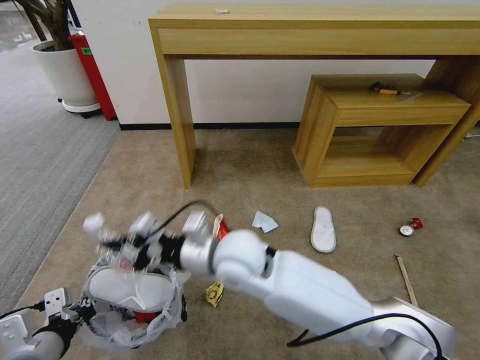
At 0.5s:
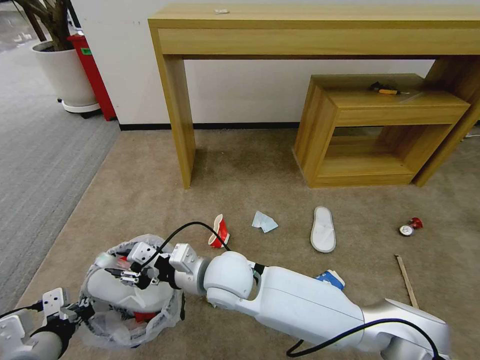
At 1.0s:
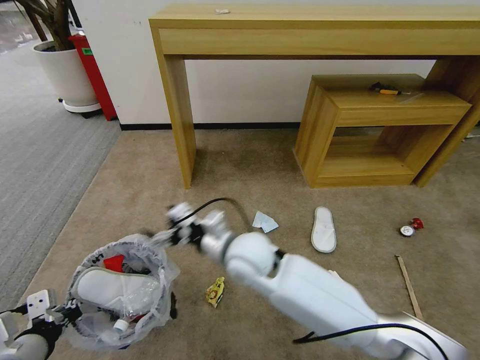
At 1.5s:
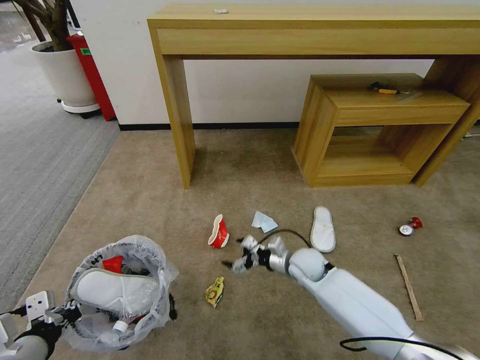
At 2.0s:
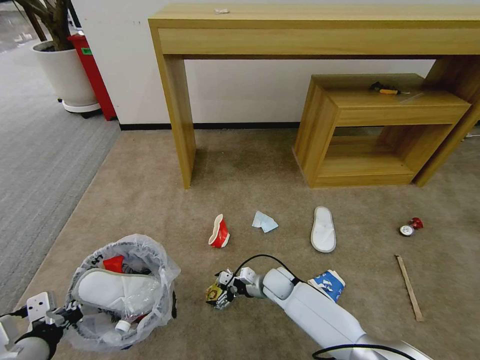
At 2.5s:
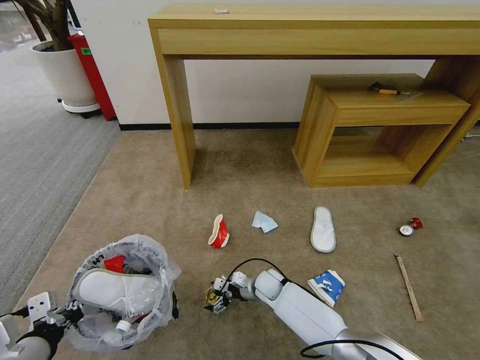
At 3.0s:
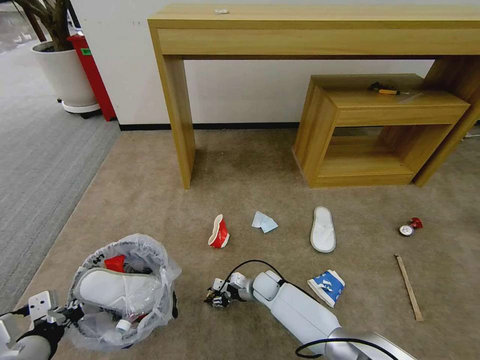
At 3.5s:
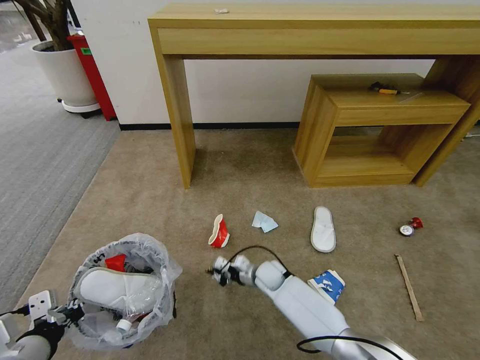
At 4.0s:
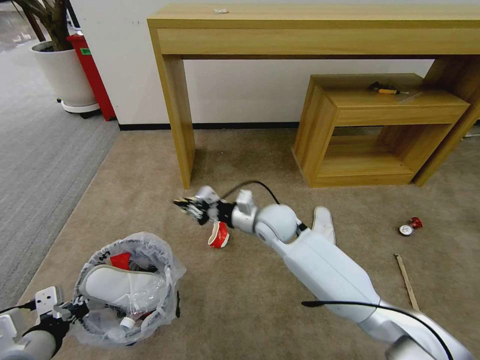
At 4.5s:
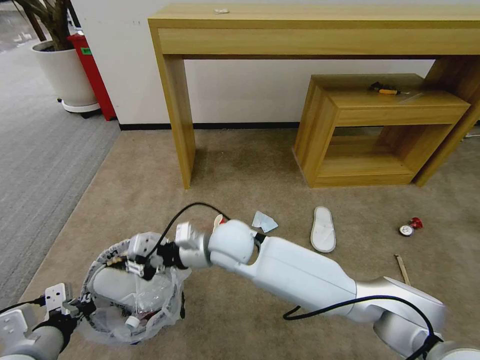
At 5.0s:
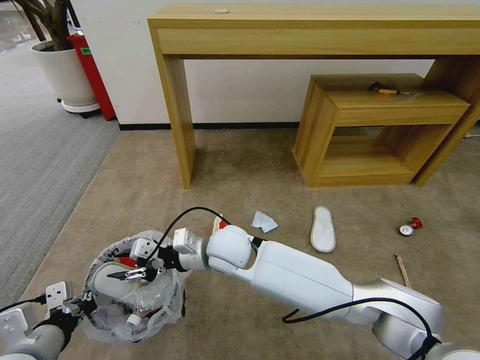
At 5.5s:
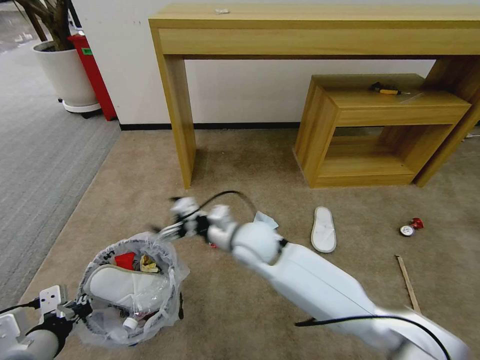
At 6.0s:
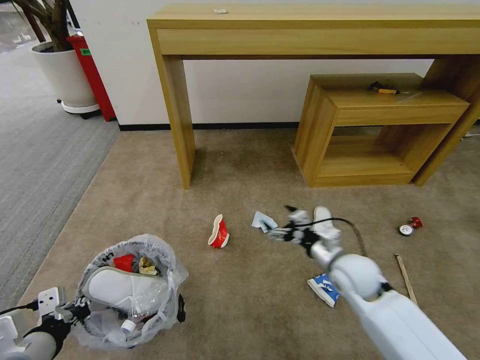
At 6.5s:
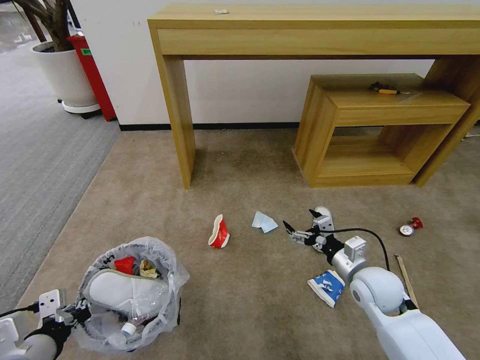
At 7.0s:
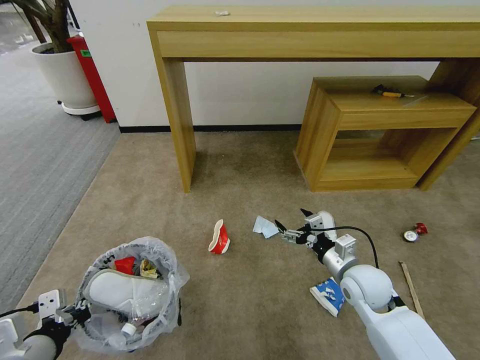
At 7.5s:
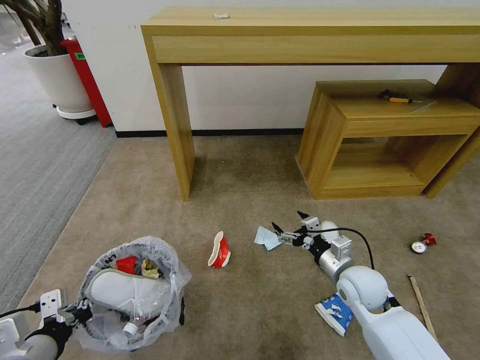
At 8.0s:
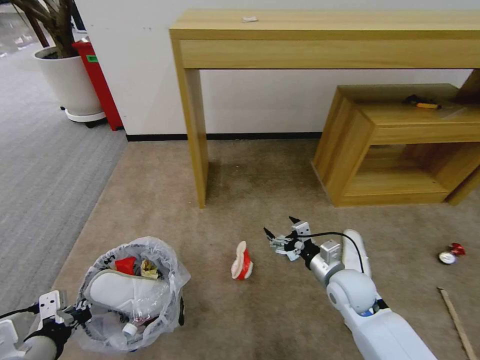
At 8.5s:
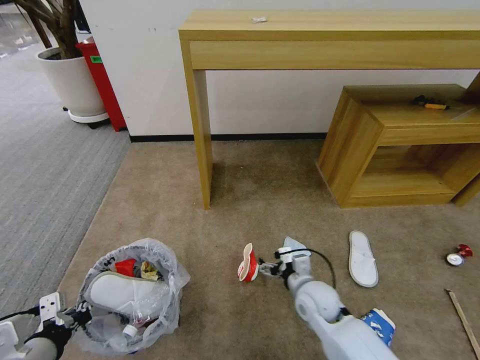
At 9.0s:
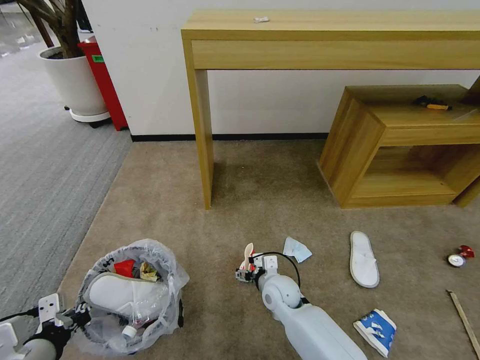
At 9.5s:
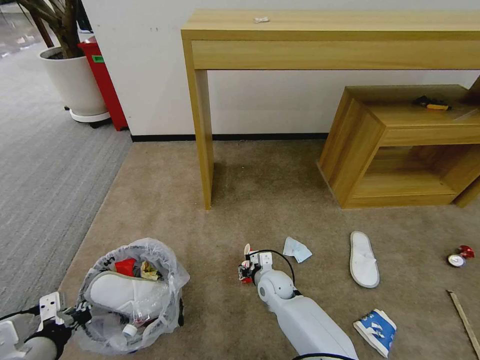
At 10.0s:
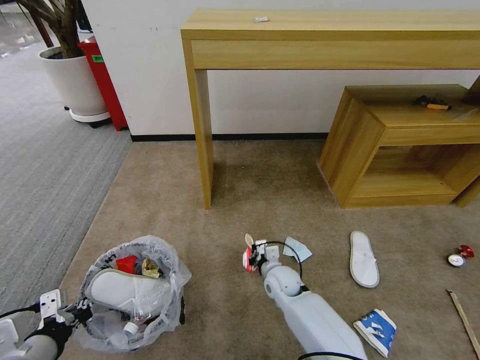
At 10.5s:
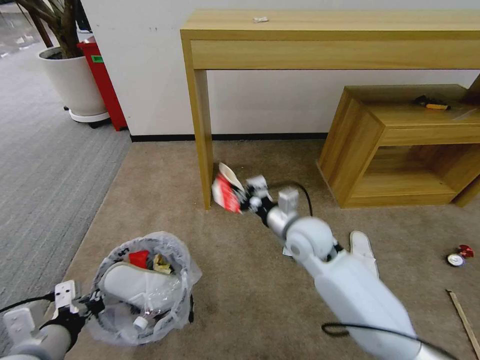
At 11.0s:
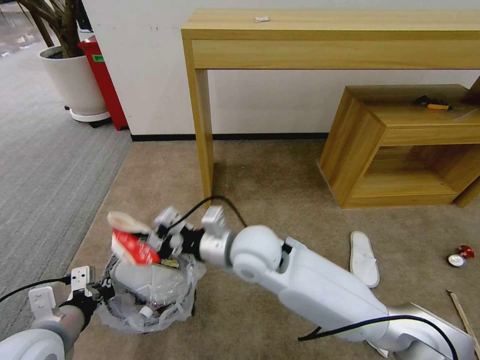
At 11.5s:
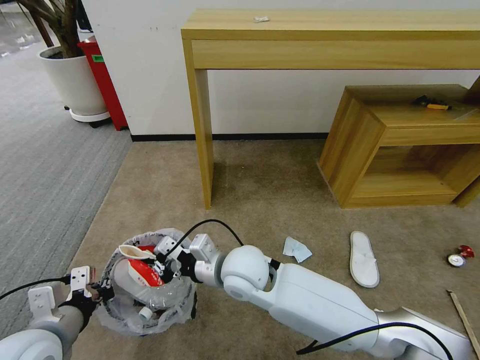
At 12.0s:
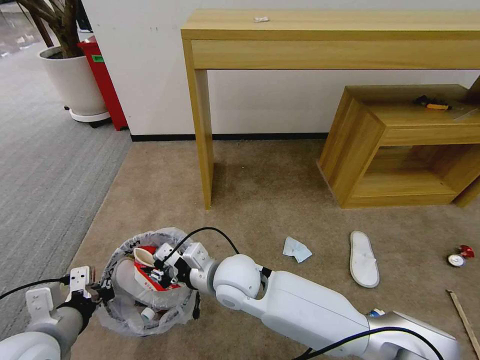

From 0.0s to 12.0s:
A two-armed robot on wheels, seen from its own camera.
Task of the whole recording: Pick up the trash bin and place the garbage on the floor into it.
From 0.0s to 2.0s: The right gripper shifts about 30 cm downward, and opens up.
From 2.0s to 4.0s: The right gripper heads upward, covering about 25 cm, and closes up.
From 4.0s to 6.0s: The right gripper goes approximately 20 cm to the right and backward, and opens its fingers.
From 8.0s to 10.0s: The right gripper travels to the left, downward and forward by some 20 cm, and closes up.
From 10.0s to 12.0s: The right gripper heads upward and to the left, covering some 25 cm. The left gripper ends up approximately 5 cm from where it was.

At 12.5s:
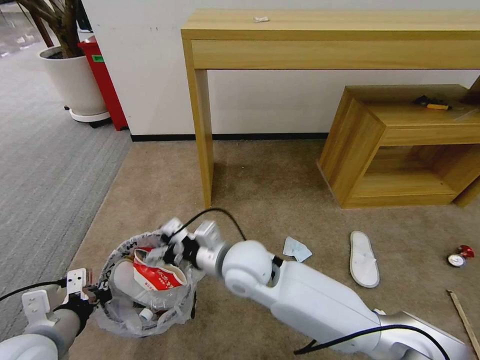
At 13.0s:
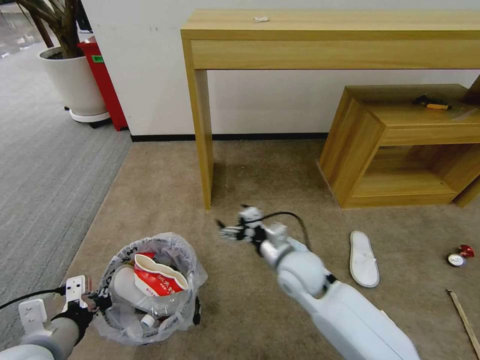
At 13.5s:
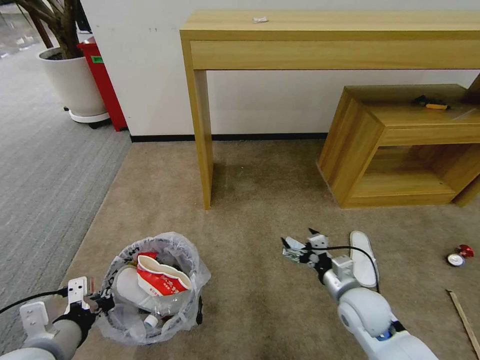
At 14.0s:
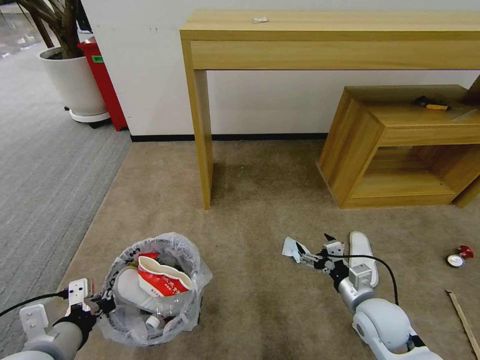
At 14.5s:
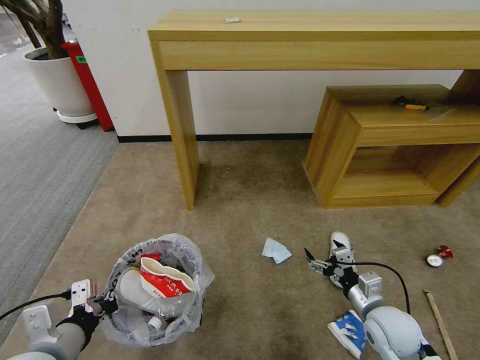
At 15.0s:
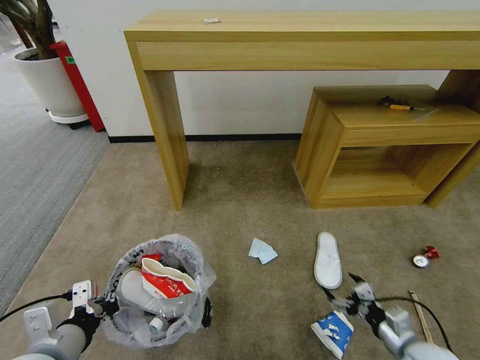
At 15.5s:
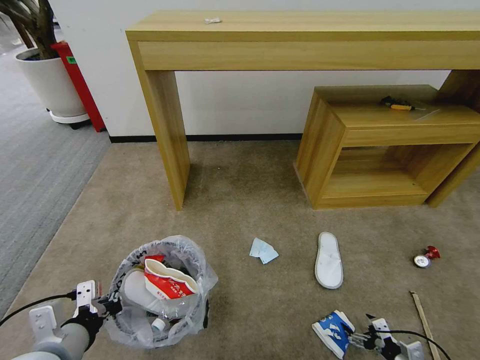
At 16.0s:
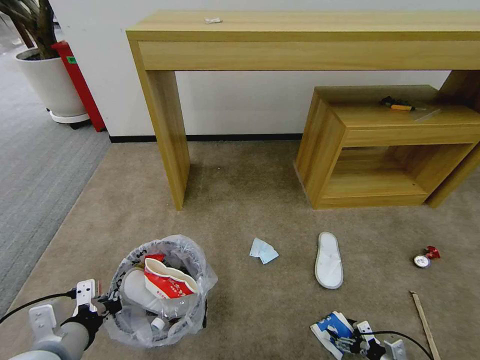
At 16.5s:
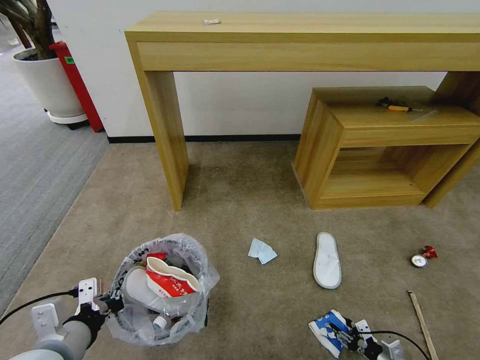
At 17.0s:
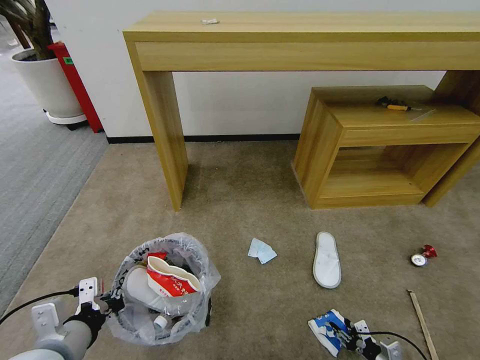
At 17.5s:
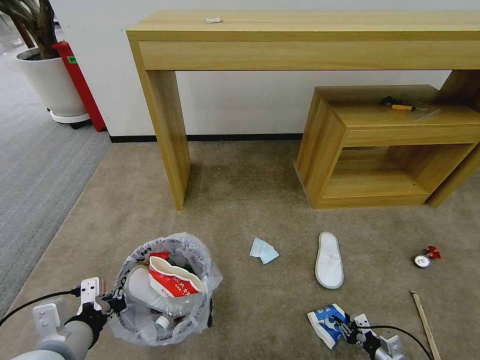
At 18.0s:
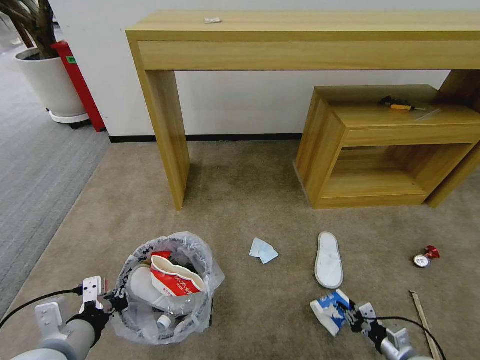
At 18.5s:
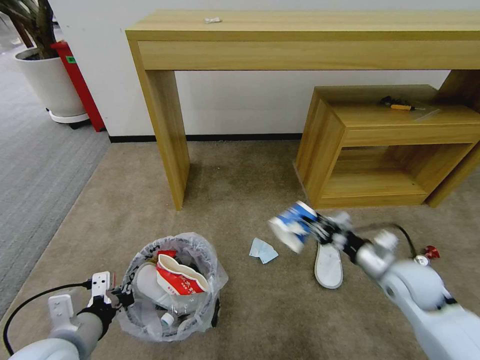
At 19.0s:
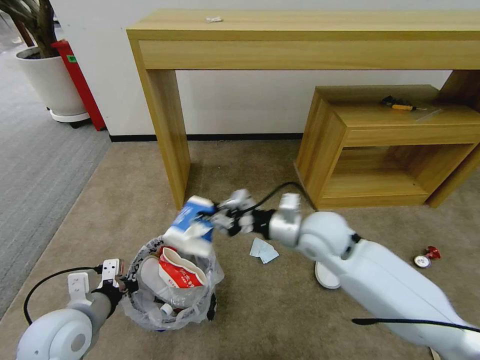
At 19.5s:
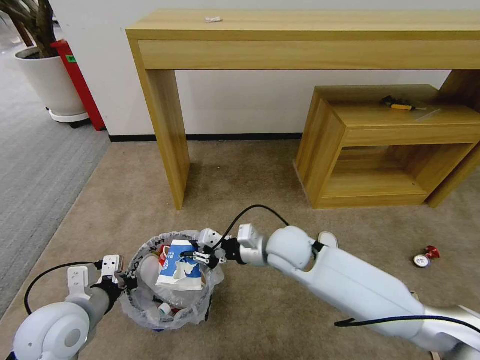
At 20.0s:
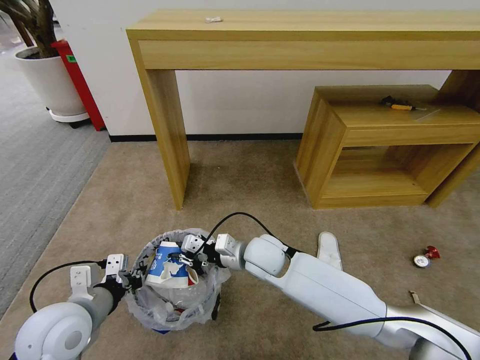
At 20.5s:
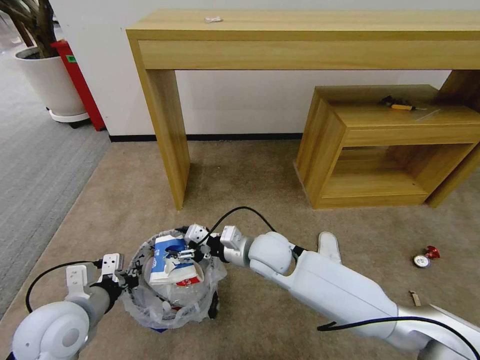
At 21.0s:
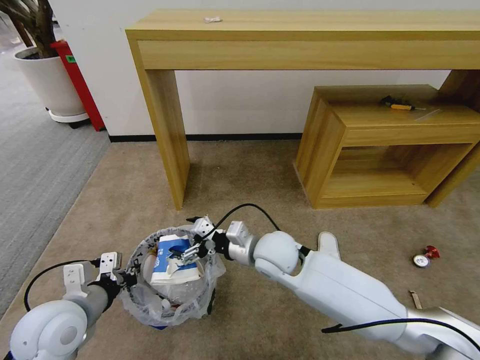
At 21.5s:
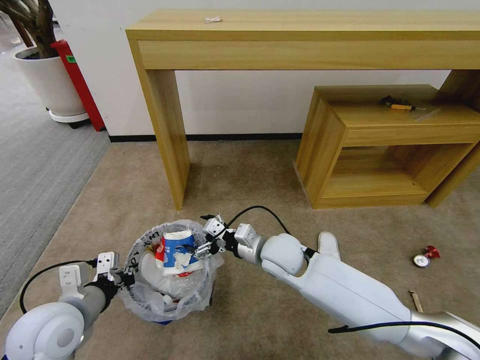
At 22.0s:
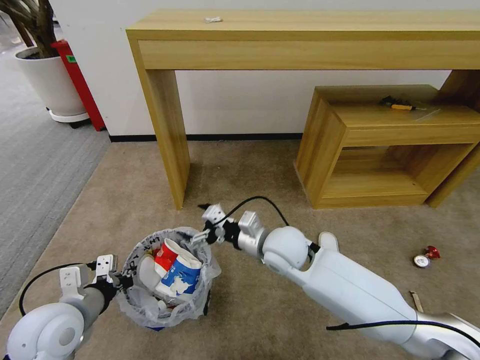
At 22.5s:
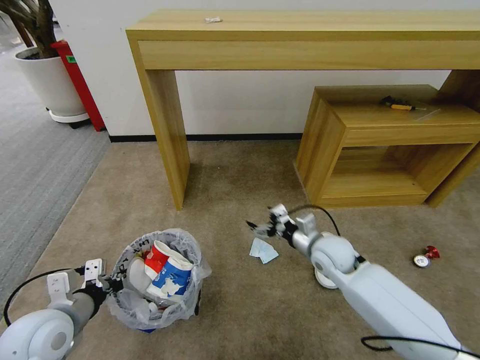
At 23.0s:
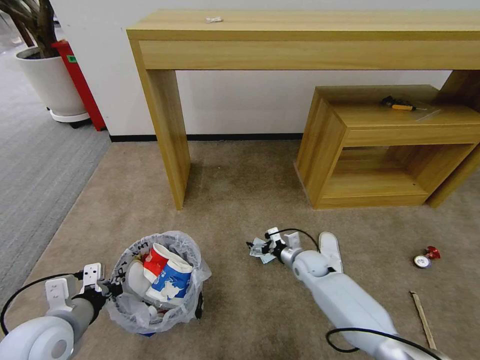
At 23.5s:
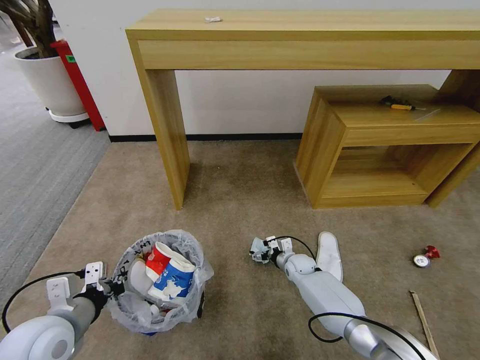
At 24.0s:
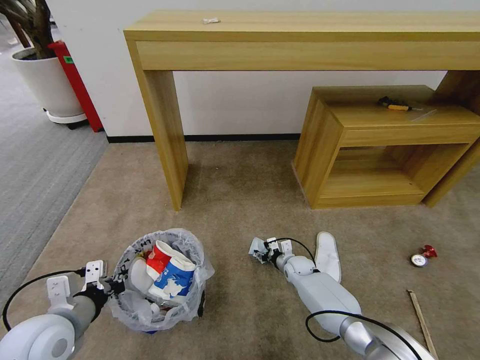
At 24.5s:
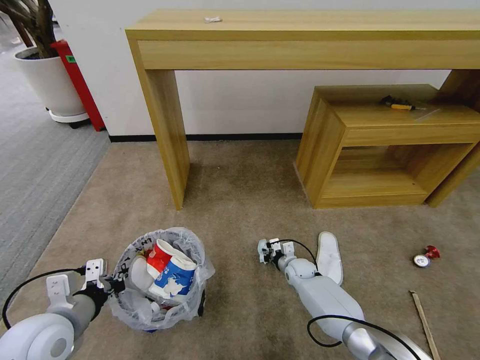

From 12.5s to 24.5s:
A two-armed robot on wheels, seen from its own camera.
Task of the whole recording: Pick up the trash bin and place the garbage on the floor into it.
From 12.5s to 14.5s: The right gripper shifts roughly 35 cm to the right and downward.
From 14.5s to 16.5s: The right gripper heads downward, to the right and backward, covering approximately 25 cm, and closes.
From 16.5s to 18.5s: The right gripper shifts about 30 cm upward and forward.
From 18.5s to 20.5s: The left gripper moves forward, approximately 5 cm; the right gripper shifts some 30 cm to the left, and opens up.
From 20.5s to 22.5s: The right gripper heads to the right, covering about 15 cm.
From 22.5s to 24.5s: The right gripper heads downward, covering roughly 20 cm, and closes up.

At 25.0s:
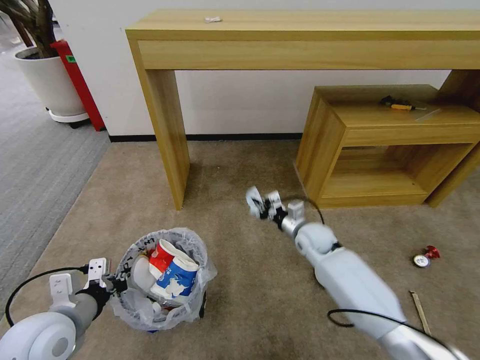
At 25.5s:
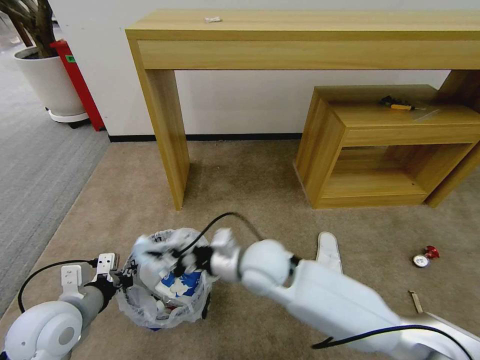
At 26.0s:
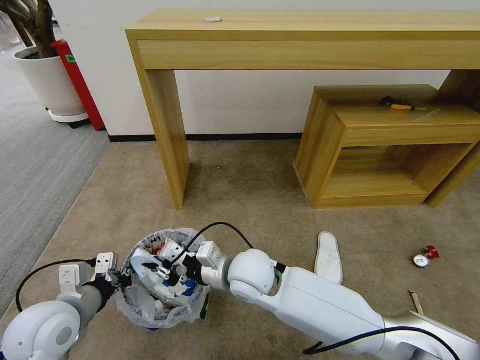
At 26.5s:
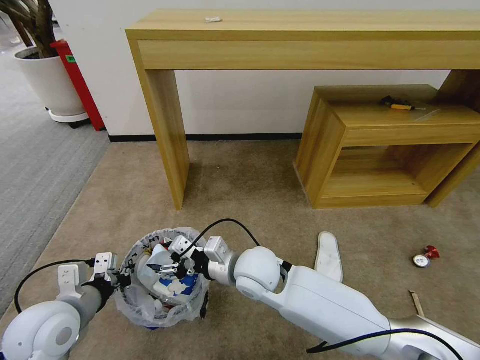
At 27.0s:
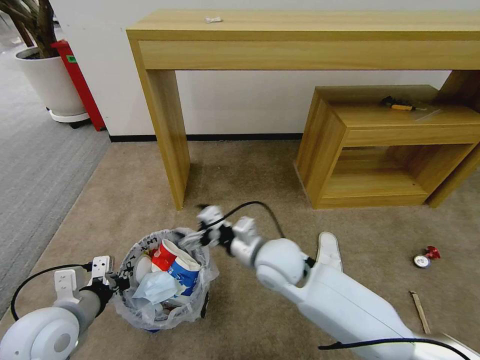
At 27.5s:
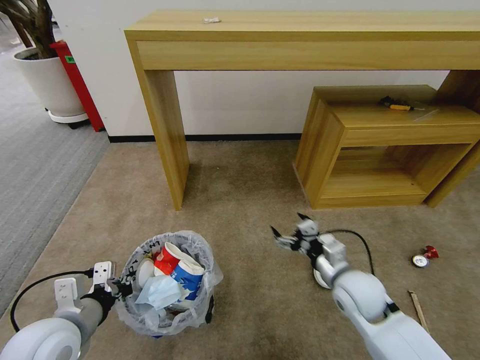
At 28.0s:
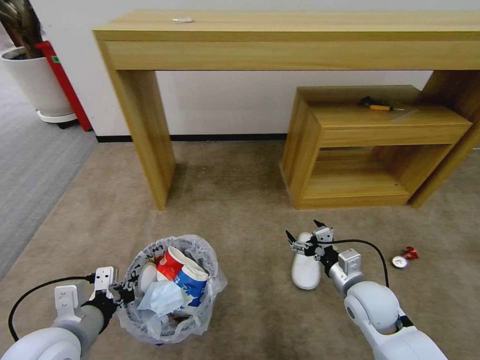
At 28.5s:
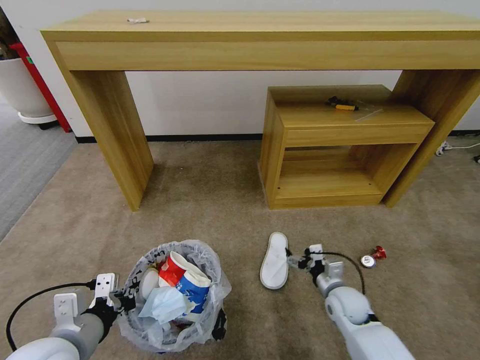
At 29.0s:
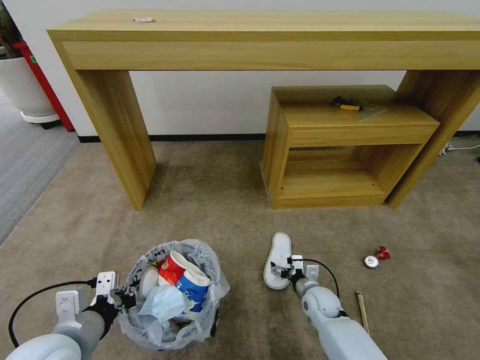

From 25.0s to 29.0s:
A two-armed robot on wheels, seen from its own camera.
Task of the whole recording: Pick up the trash bin and place the garbage on the floor into it.
From 25.0s to 27.0s: The right gripper is displaced to the left, backward and upward by about 20 cm, and opens.
From 27.0s to 29.0s: The right gripper heads downward and to the right, covering approximately 30 cm. Meanwhile the left gripper changes place by some 5 cm.
